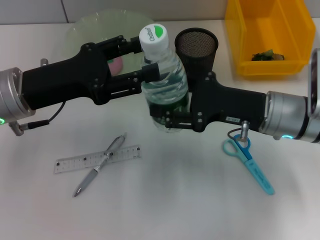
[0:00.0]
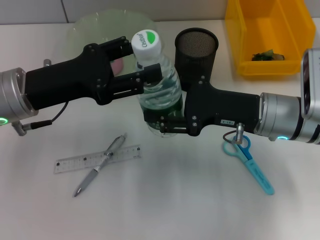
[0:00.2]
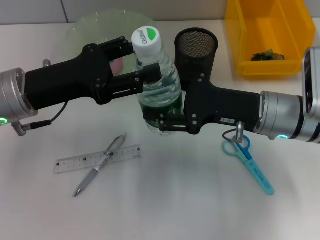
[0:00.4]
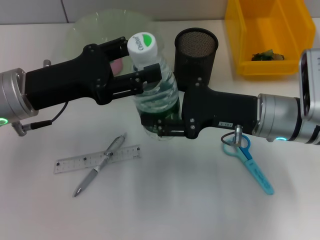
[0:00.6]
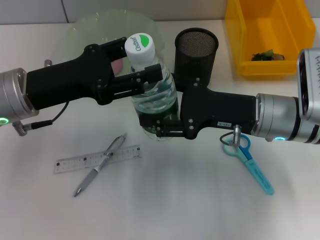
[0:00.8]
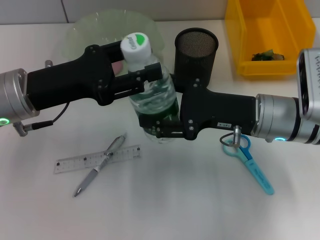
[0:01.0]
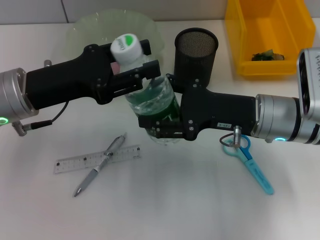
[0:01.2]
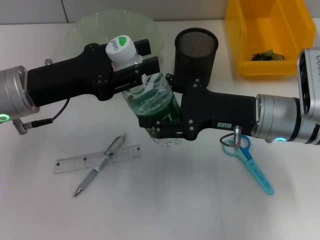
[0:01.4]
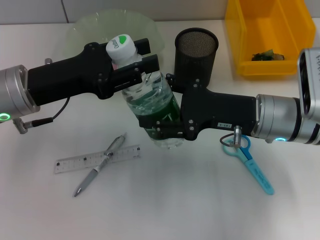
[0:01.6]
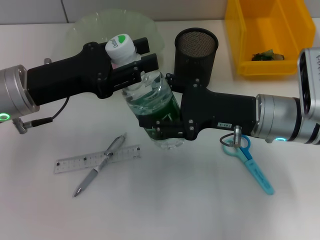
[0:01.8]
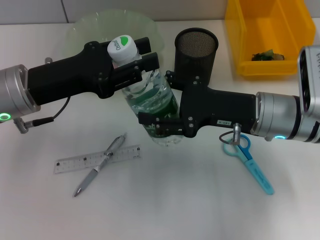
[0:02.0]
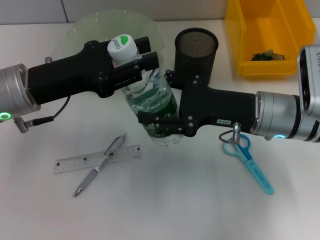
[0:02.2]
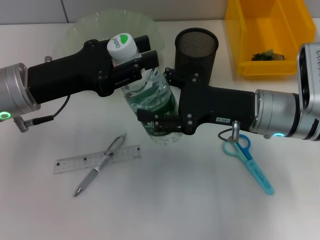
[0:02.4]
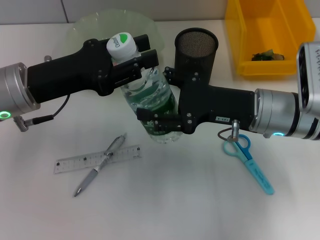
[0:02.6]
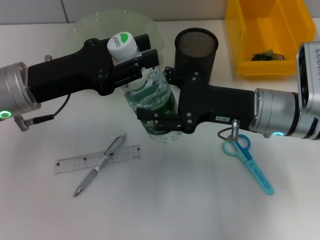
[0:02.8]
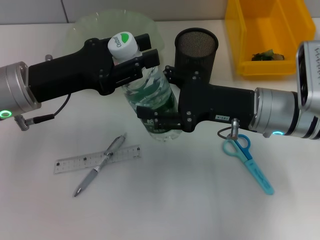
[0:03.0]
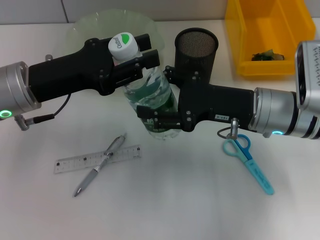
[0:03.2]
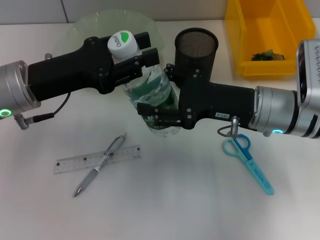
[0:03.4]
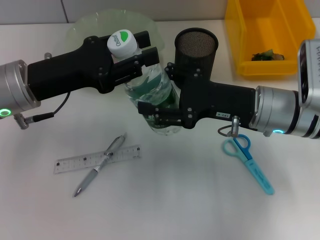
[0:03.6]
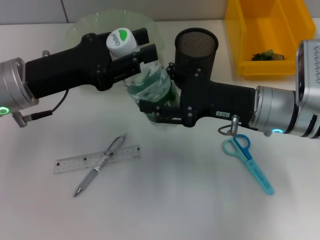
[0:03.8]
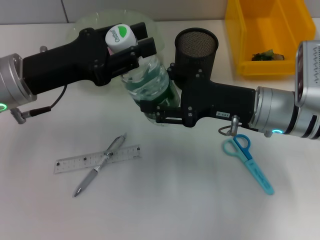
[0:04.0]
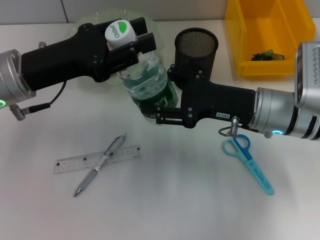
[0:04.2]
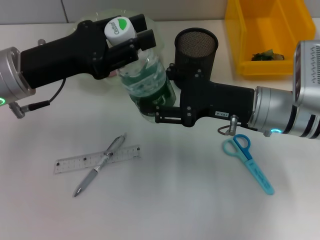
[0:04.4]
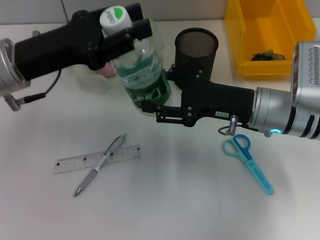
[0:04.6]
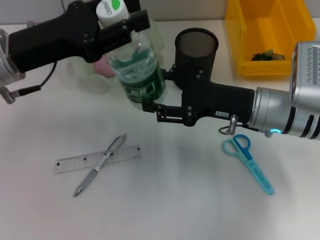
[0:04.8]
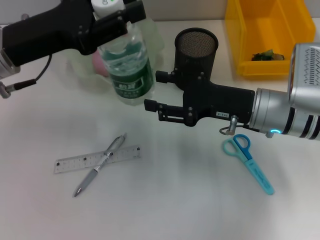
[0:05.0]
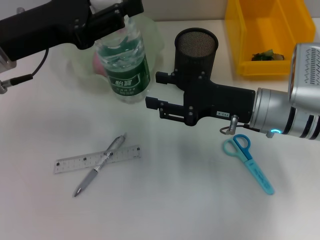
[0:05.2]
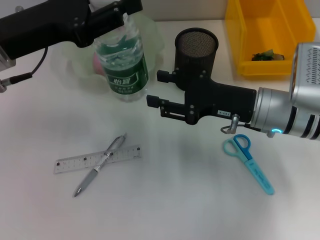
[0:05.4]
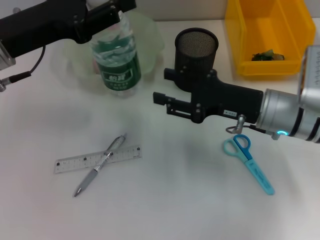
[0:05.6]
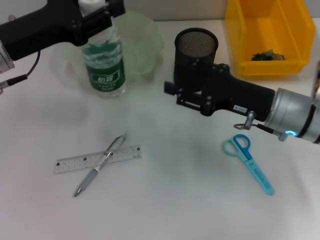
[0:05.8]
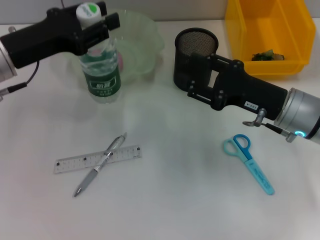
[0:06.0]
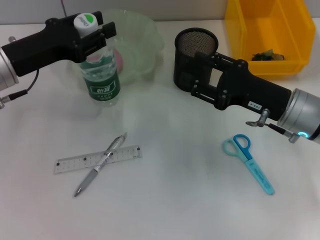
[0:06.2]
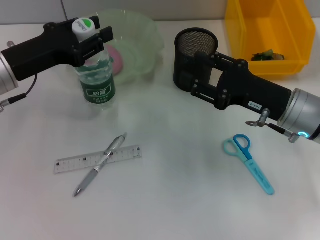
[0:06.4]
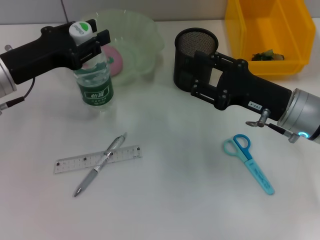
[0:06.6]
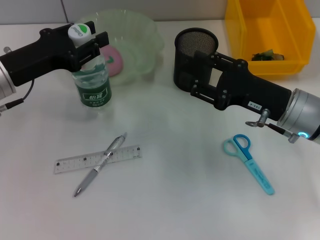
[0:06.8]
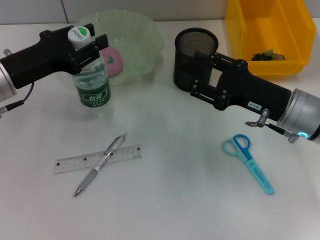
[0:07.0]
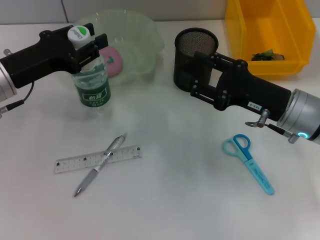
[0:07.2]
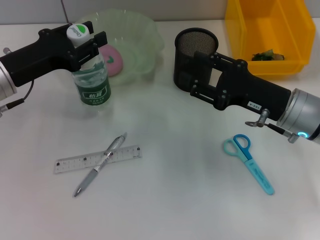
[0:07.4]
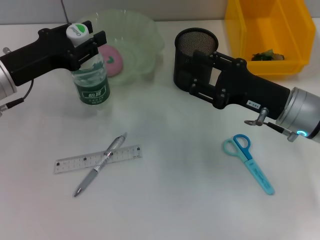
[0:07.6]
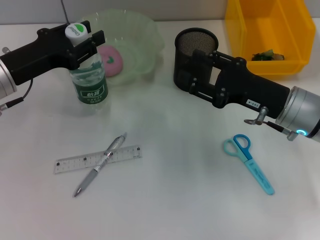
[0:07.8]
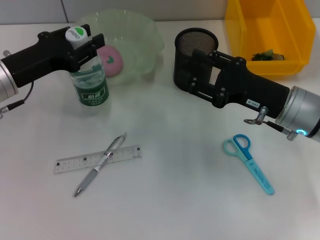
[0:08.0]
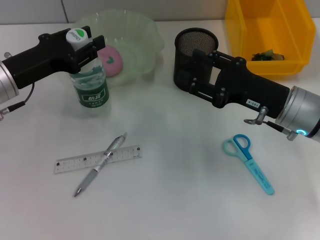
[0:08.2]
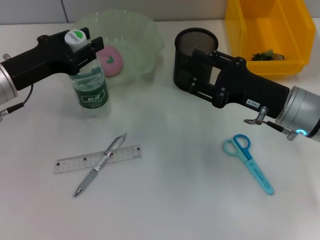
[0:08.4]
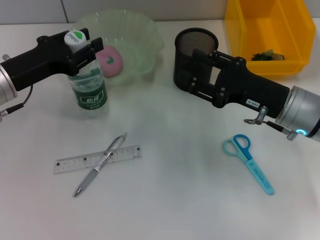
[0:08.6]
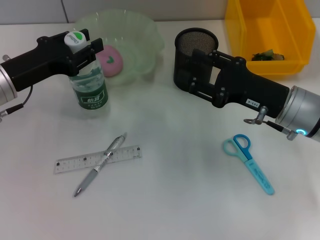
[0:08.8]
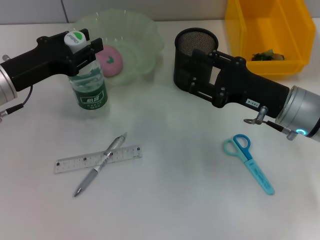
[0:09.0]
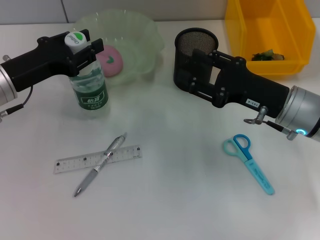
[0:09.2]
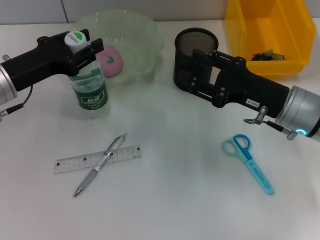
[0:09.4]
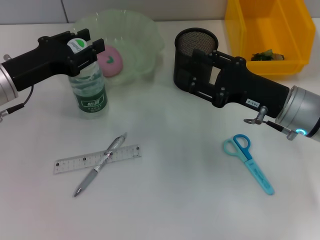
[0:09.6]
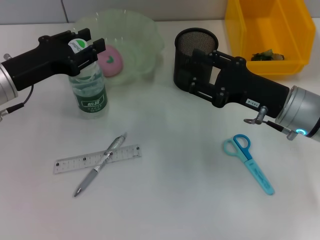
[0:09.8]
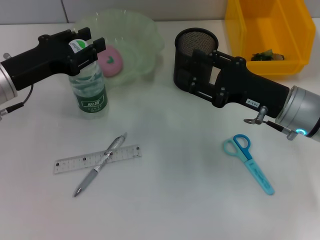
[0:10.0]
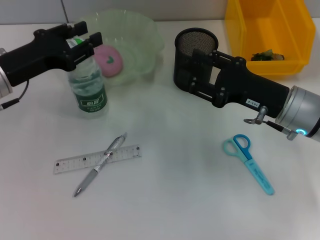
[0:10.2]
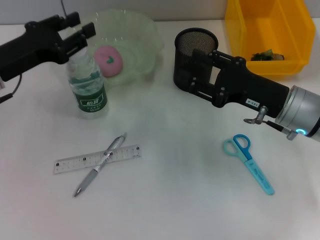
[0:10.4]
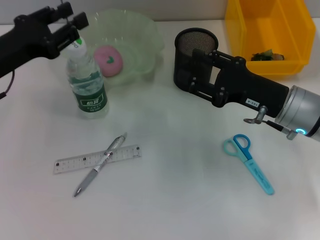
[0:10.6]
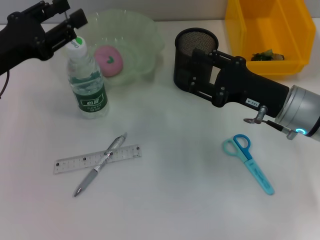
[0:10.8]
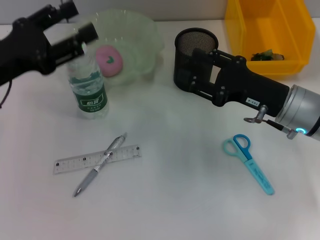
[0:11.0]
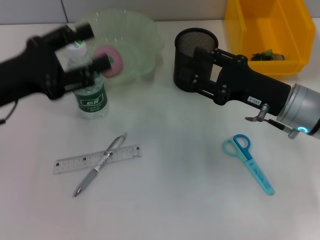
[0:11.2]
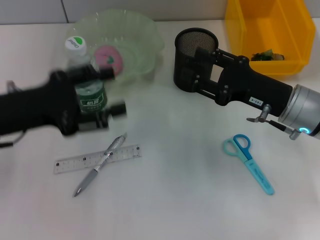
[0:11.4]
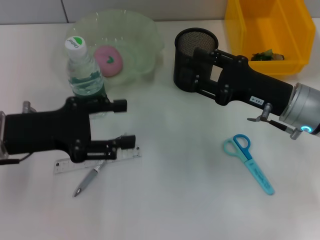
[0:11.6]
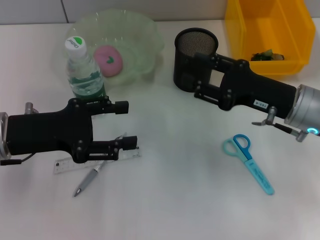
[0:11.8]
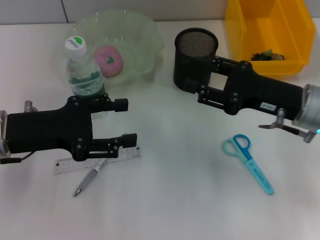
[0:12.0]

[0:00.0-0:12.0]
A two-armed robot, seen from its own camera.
Step, 0:00.0 to 0:05.4: Pass the water bottle from the right hand to the left hand.
Step, 0:05.6 to 0:10.4: Place the water bottle on the table with the left hand.
0:00.0 to 0:01.6: The left gripper closes.
0:01.6 to 0:03.0: Both grippers stay about where they are.
0:03.0 to 0:04.4: The grippers stay close to where they were, moving slightly.
0:06.0 to 0:07.6: The grippers move only a little.
0:07.6 to 0:09.0: Both grippers stay about where they are.
0:09.0 to 0:10.4: The grippers move only a little.
0:10.4 to 0:12.0: The left gripper heads backward, covering roughly 5 cm, and opens its fingers.

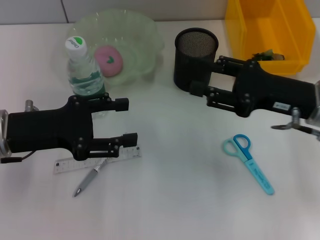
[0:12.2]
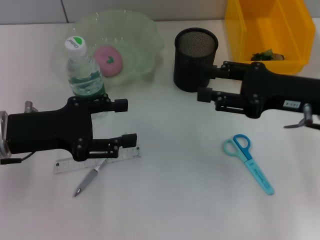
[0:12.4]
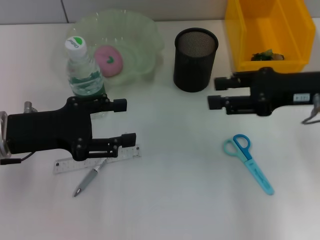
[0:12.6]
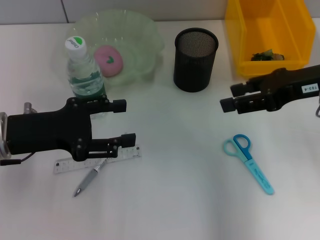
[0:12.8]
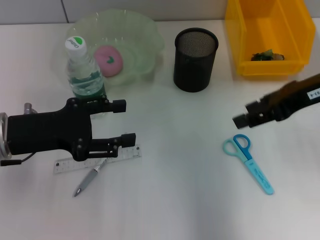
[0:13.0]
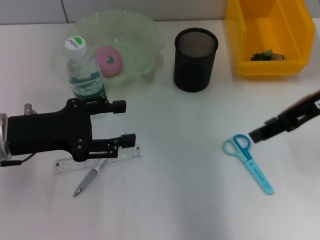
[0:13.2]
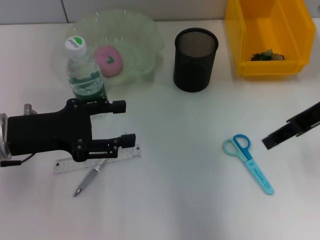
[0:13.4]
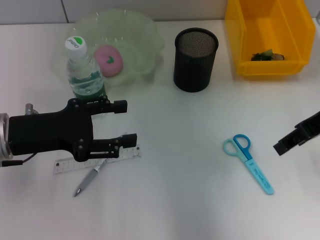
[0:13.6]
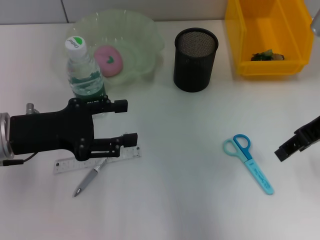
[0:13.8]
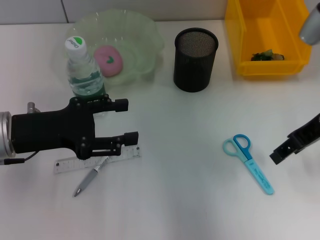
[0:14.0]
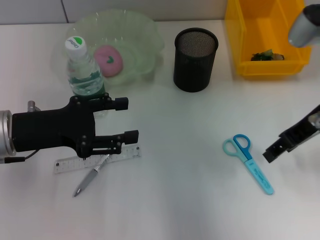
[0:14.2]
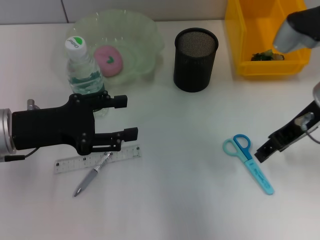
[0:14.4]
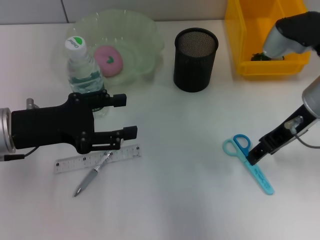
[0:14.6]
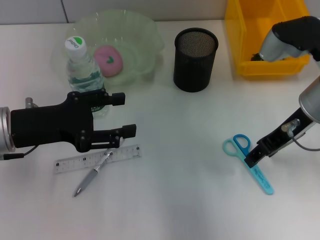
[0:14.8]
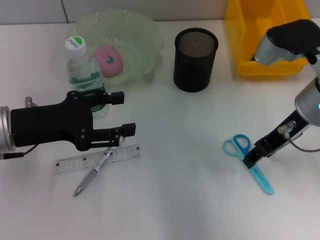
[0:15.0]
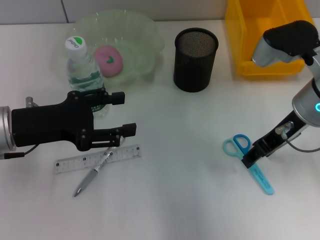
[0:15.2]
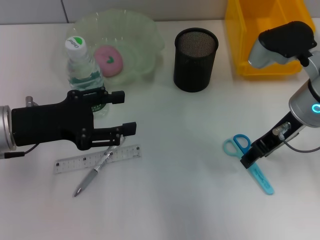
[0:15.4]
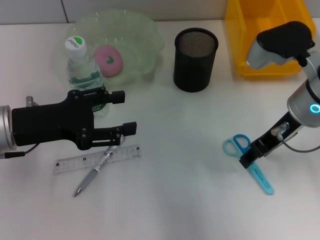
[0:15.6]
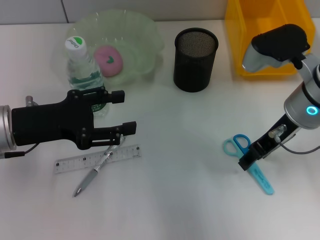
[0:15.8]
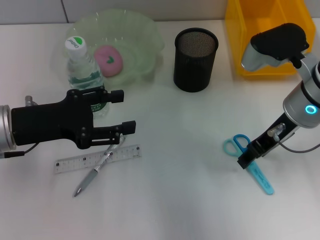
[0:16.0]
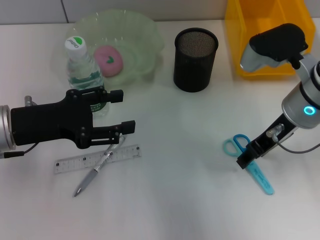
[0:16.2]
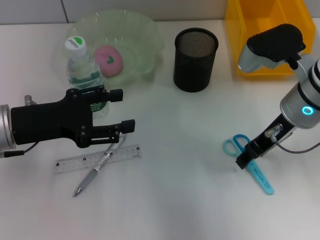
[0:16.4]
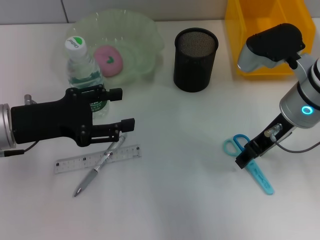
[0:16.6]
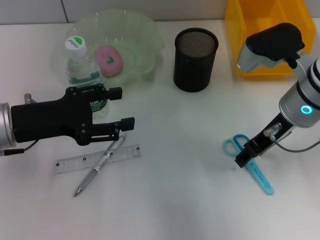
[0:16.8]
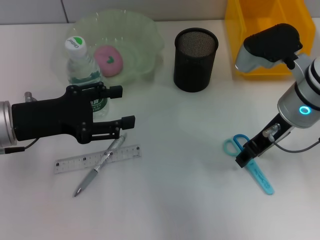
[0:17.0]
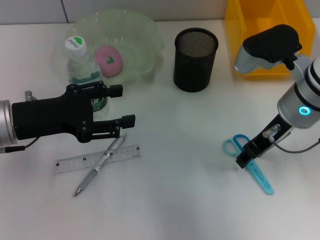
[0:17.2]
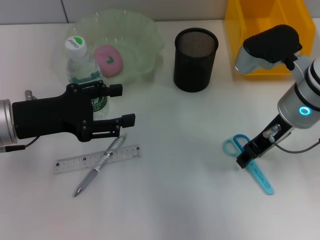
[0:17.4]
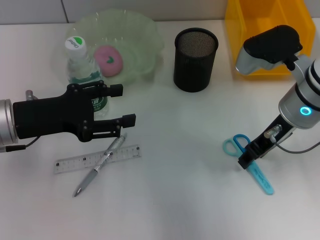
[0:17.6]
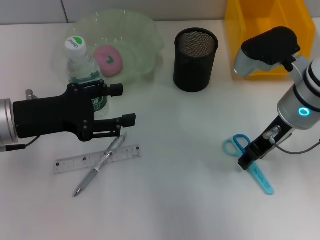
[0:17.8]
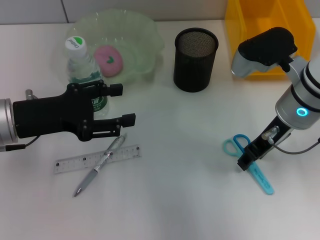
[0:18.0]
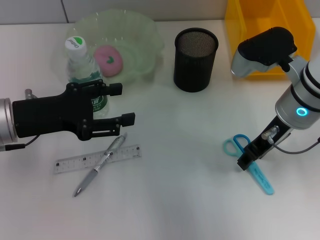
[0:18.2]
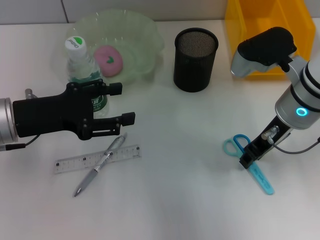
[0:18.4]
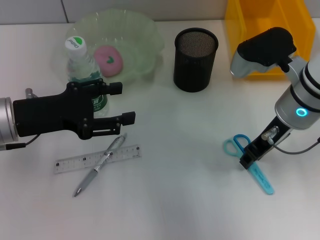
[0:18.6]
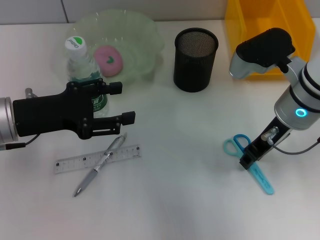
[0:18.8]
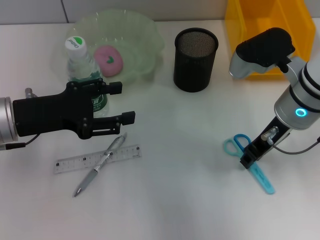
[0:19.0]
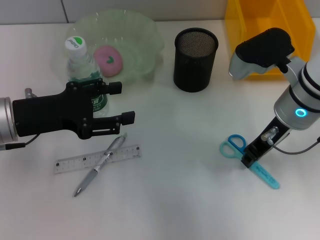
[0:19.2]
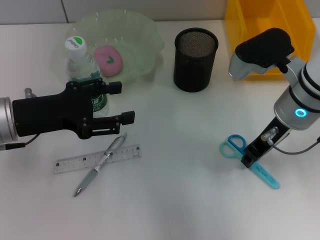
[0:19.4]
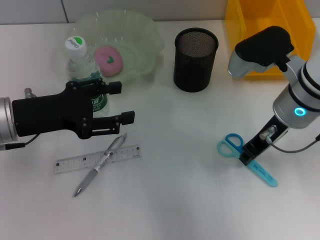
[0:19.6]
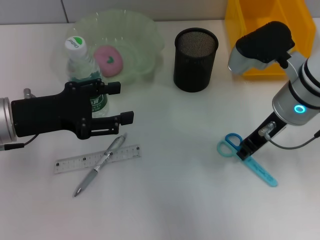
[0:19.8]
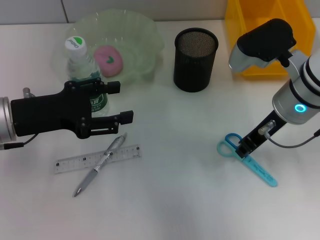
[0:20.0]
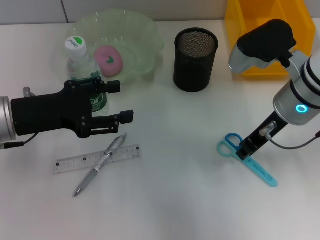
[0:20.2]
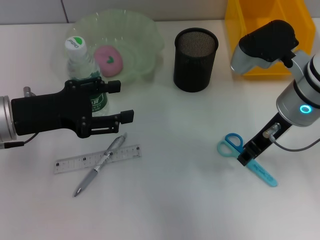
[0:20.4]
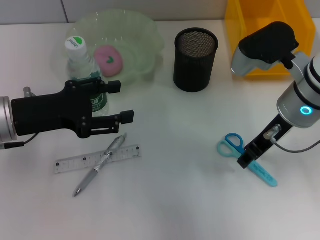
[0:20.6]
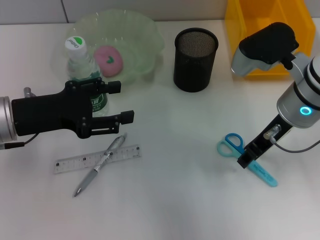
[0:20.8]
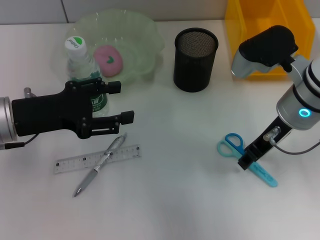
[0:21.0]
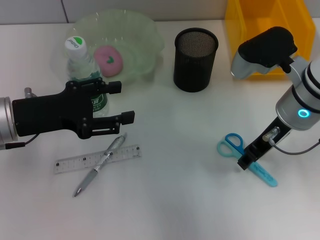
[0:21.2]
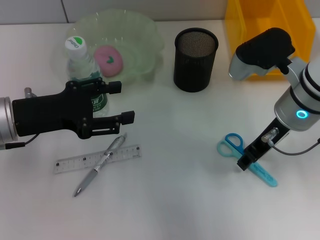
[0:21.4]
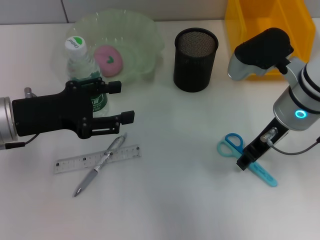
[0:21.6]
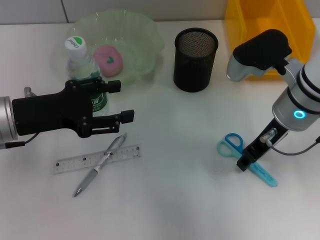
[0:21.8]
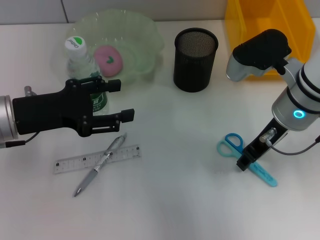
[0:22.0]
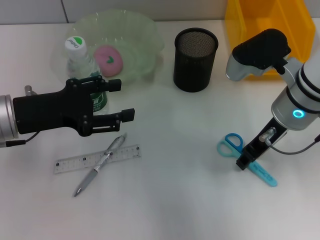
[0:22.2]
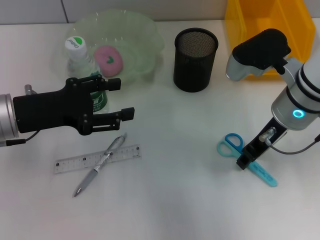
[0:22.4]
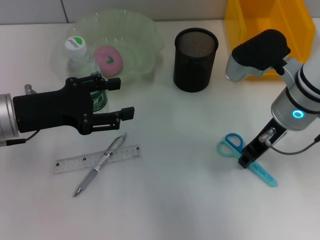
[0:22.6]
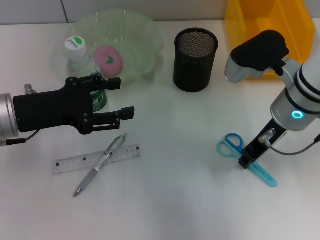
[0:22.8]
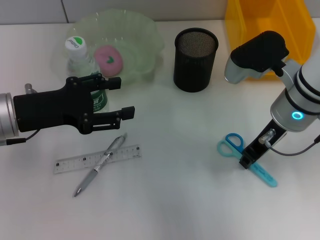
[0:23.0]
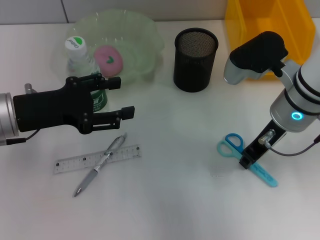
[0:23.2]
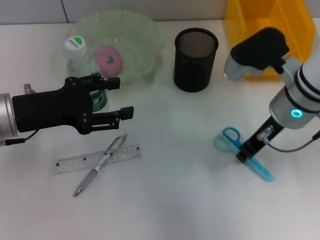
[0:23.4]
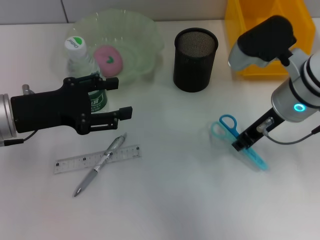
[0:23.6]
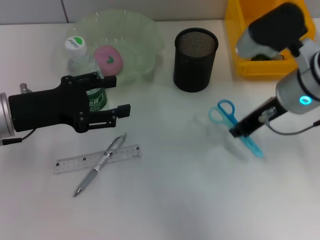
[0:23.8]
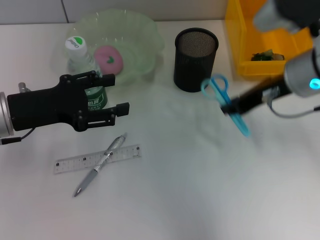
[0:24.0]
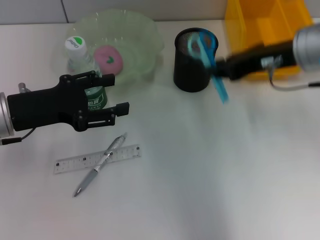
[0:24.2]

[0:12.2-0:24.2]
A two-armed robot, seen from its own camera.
0:12.2 to 0:13.8: The right gripper heads upward, covering approximately 10 cm.
0:13.8 to 0:15.2: The right gripper heads downward, covering roughly 5 cm.
0:15.2 to 0:16.6: The grippers make only small movements.
0:16.6 to 0:18.2: Both grippers stay put.
0:18.2 to 0:19.8: The right gripper closes up.
0:19.8 to 0:22.6: Both grippers stay about where they are.
0:22.6 to 0:24.2: The right gripper shifts roughly 5 cm upward.
